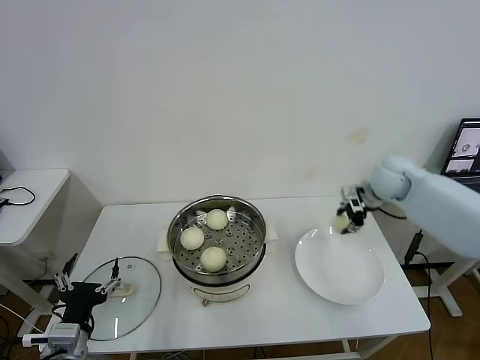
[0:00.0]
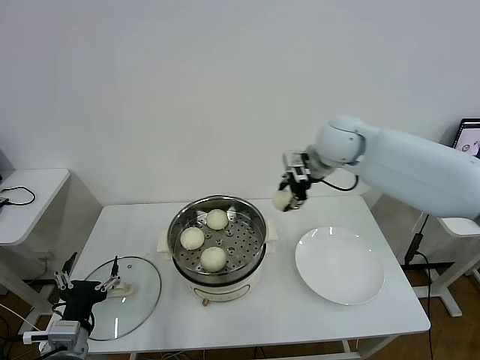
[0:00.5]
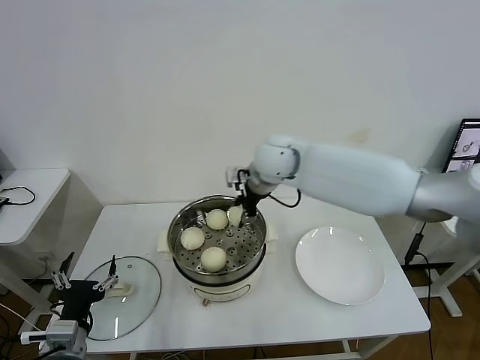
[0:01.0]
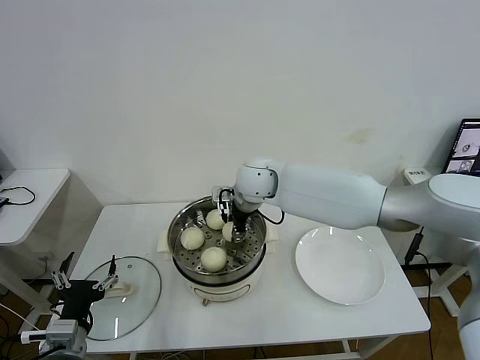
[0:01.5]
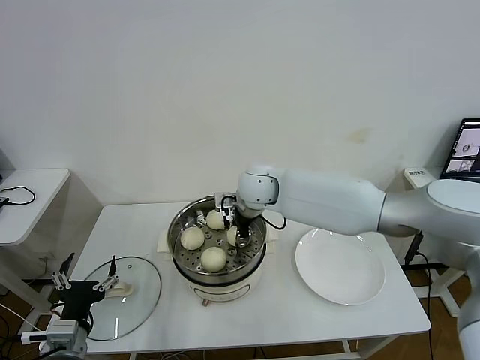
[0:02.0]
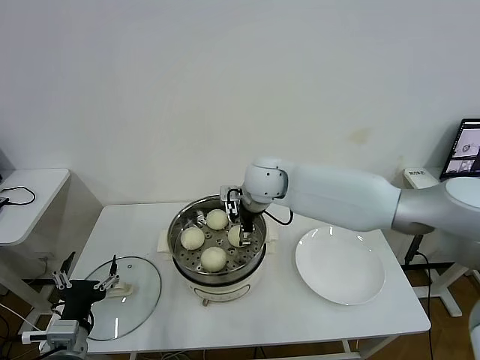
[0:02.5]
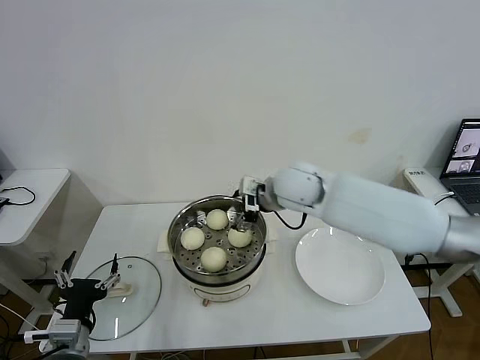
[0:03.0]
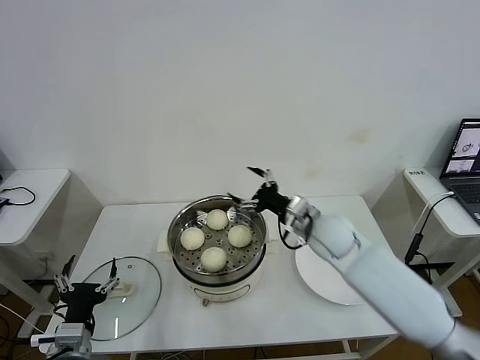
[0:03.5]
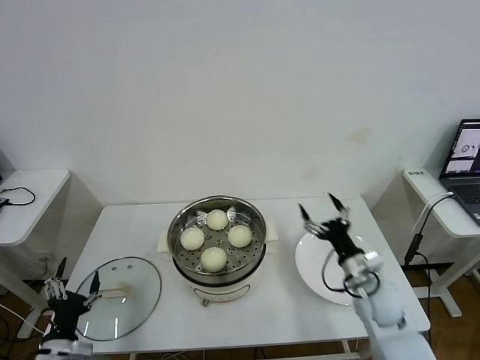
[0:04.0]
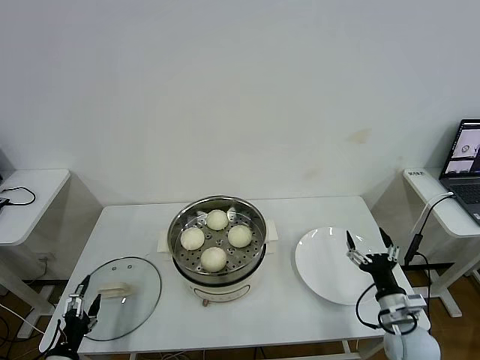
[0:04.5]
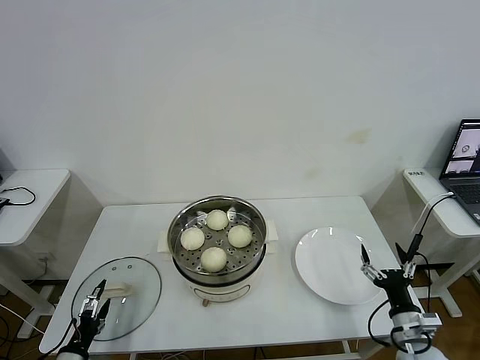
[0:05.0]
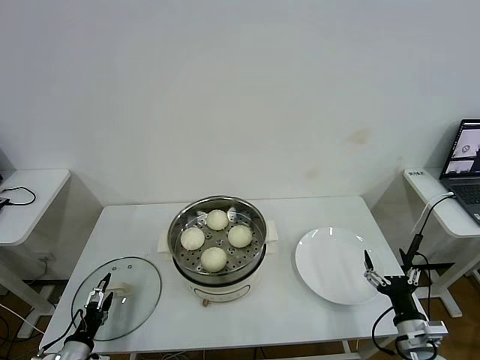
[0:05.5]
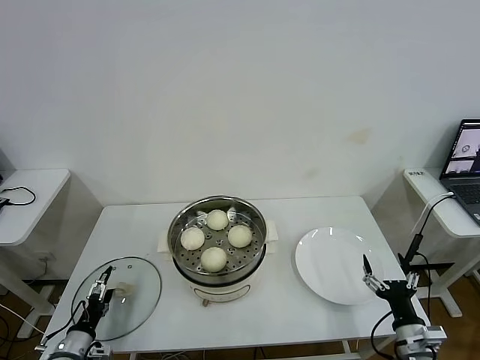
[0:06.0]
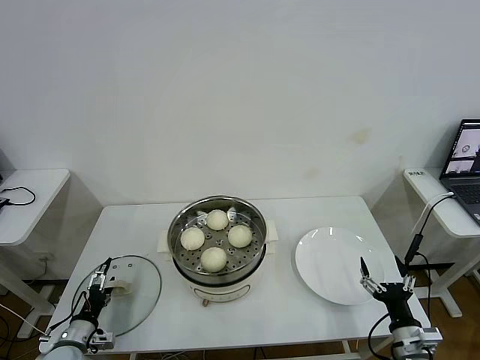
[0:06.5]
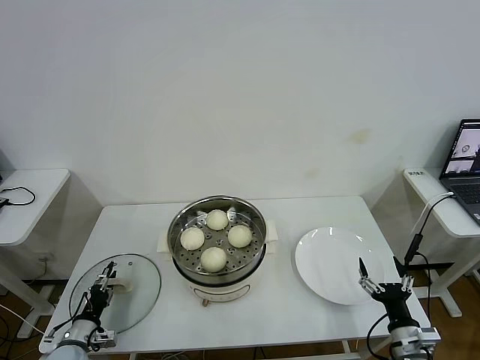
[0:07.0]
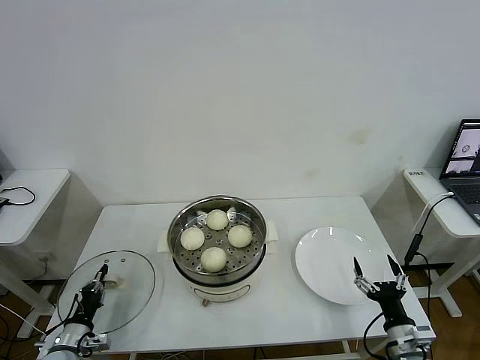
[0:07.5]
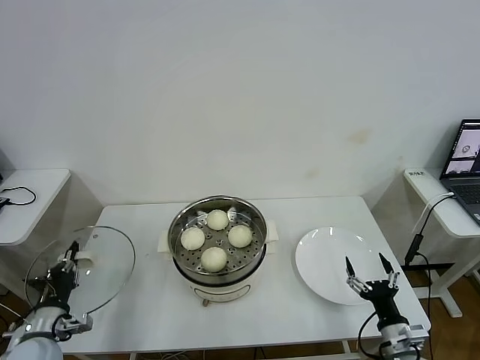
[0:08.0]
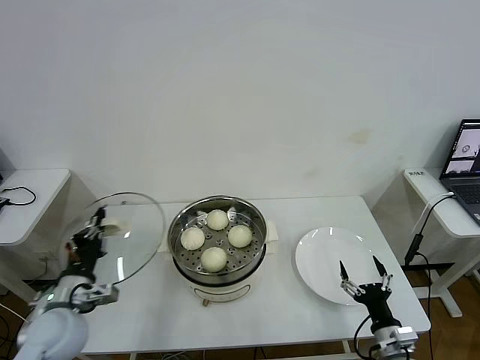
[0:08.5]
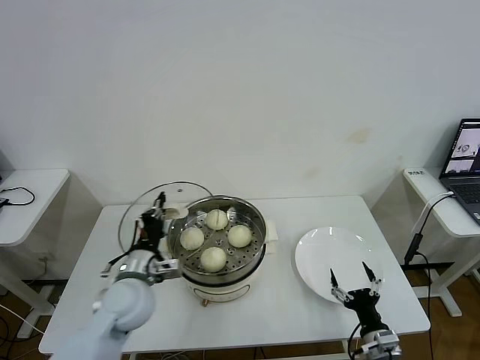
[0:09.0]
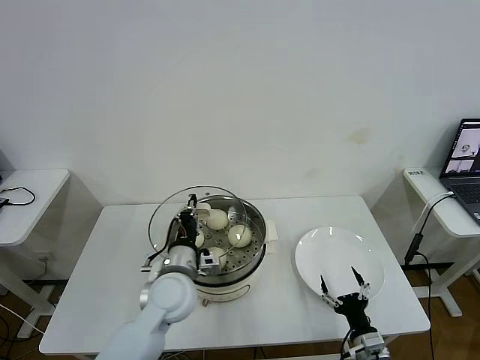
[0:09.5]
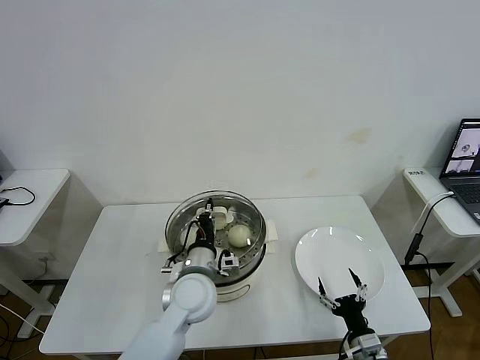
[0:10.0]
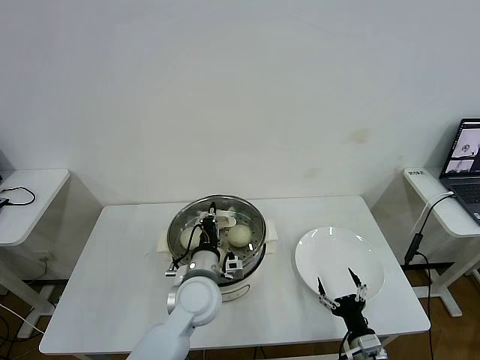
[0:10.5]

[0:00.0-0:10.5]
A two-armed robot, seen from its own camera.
Task of the whole recording: take steamed baozi put them in steamer then cover it.
Step, 0:00.0 to 0:02.0: Place the baozi on the steamer with right gripper.
Step, 0:02.5 to 0:07.0: Grasp the pot lid with left gripper.
0:00.0 to 0:02.0: The right gripper heads to the left, covering roughly 30 cm.
0:02.0 to 0:04.0: The right gripper shifts approximately 35 cm to the right, backward and downward, and opens. Meanwhile the left gripper is displaced downward by approximately 5 cm.
0:04.0 to 0:06.5: The left gripper travels downward, forward and to the left by about 15 cm; the right gripper heads backward, to the right and downward, covering about 15 cm.
0:06.5 to 0:08.5: The left gripper shifts about 15 cm upward, and closes up.
0:08.5 to 0:10.5: The right gripper ends up approximately 5 cm from where it was. The left gripper is displaced to the right by about 25 cm.

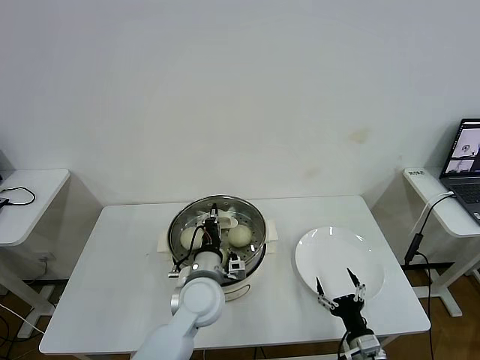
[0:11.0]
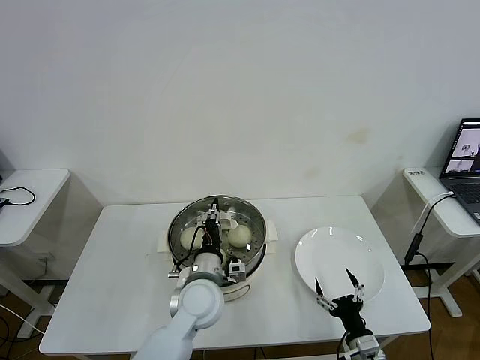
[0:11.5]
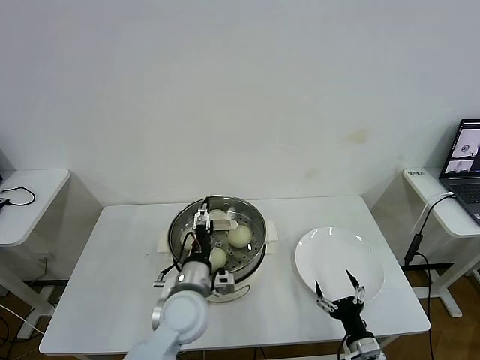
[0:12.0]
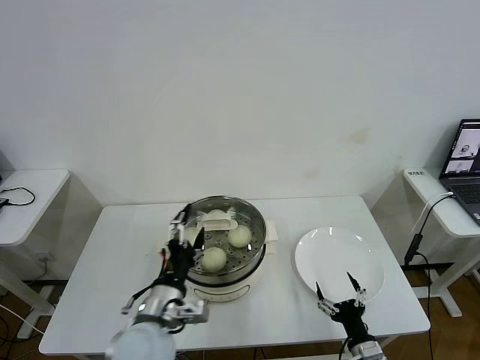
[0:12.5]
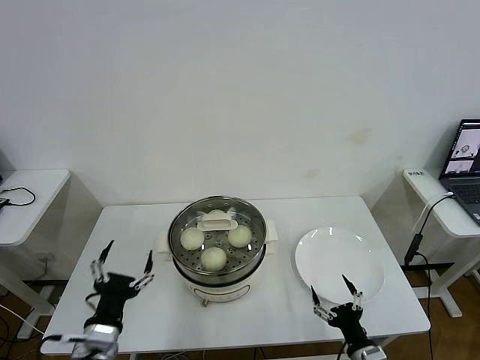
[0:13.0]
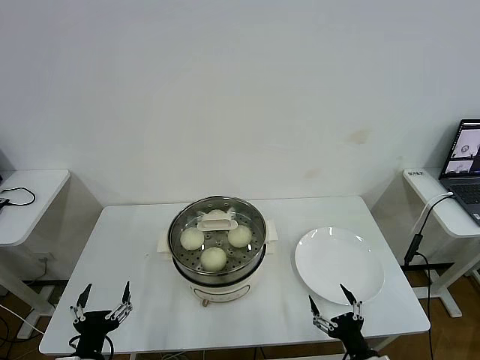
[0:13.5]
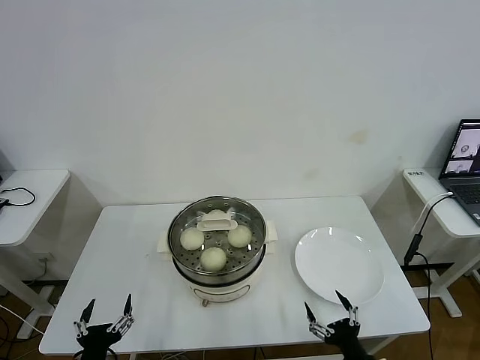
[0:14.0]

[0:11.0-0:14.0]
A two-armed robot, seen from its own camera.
Task of the whole recording: take steamed baozi put them in steamer then cover it.
0:11.0 to 0:12.5: The left gripper travels backward and to the left by roughly 10 cm, and opens its fingers.
0:12.5 to 0:14.0: The left gripper is displaced to the left, backward and downward by about 20 cm; the right gripper ends up some 5 cm from where it was.
